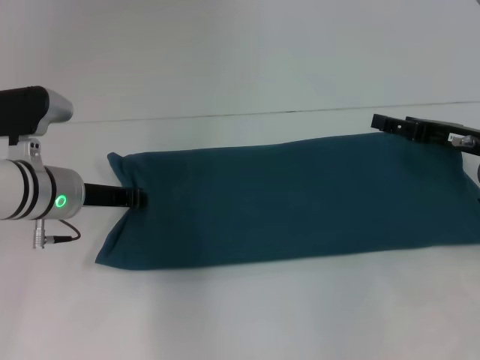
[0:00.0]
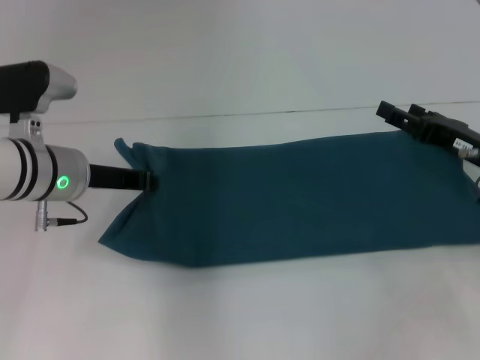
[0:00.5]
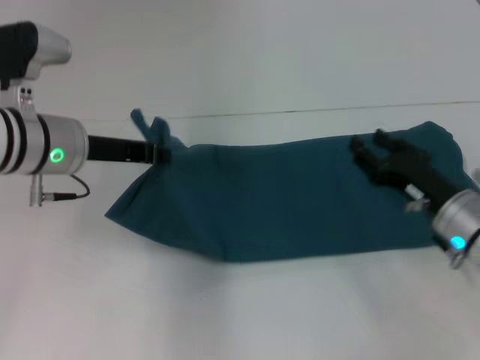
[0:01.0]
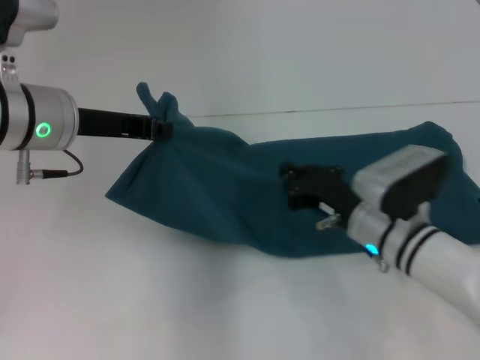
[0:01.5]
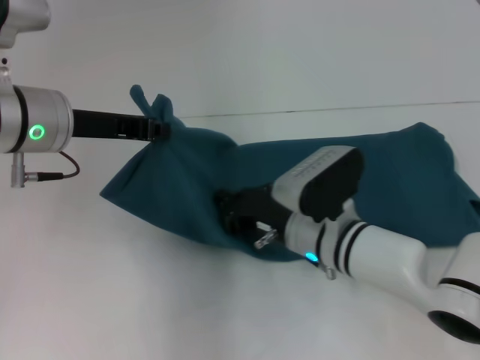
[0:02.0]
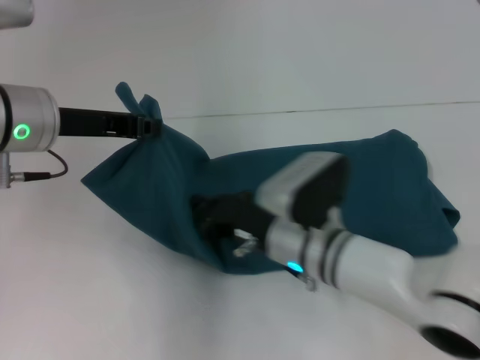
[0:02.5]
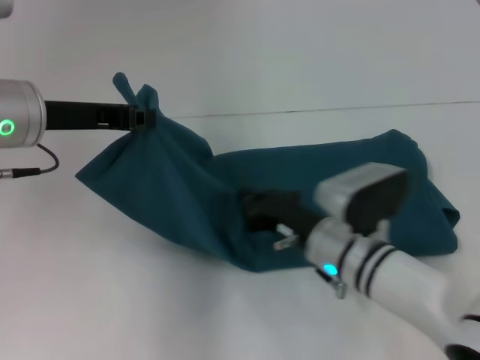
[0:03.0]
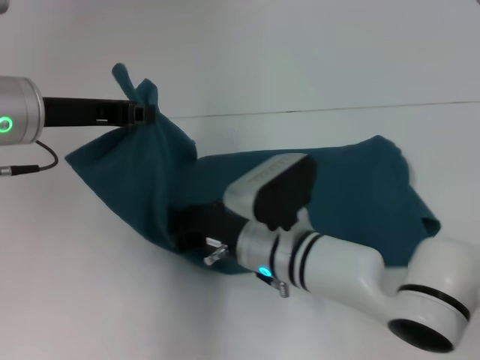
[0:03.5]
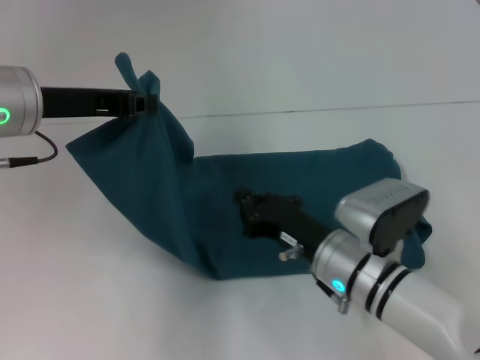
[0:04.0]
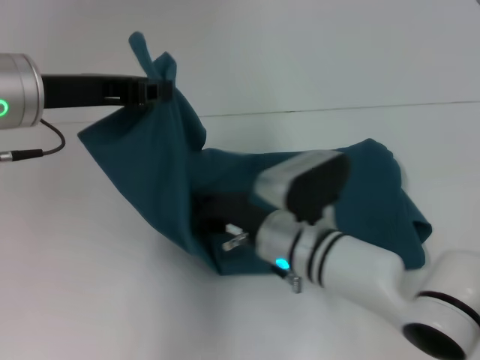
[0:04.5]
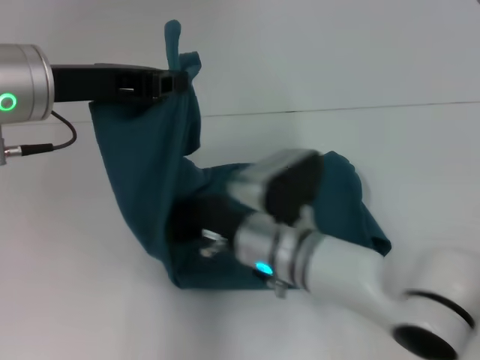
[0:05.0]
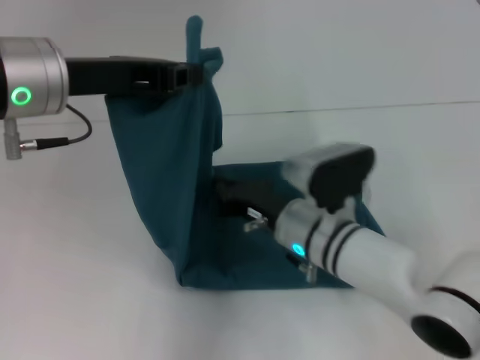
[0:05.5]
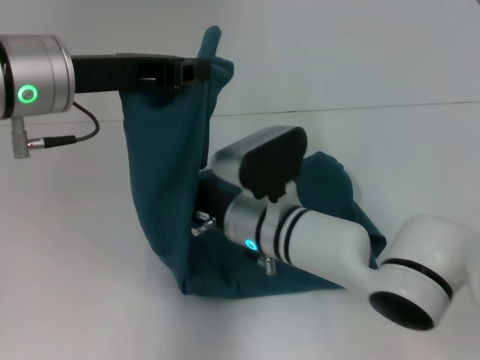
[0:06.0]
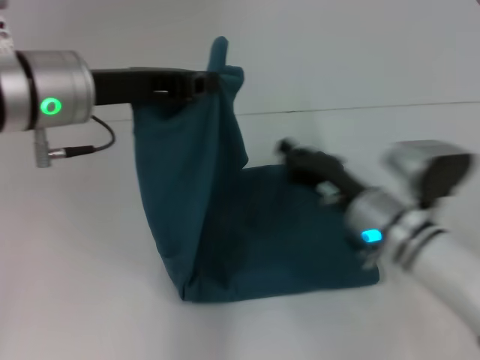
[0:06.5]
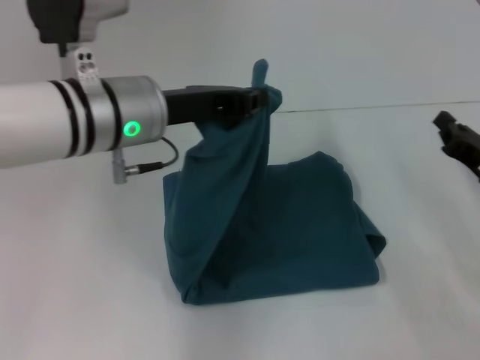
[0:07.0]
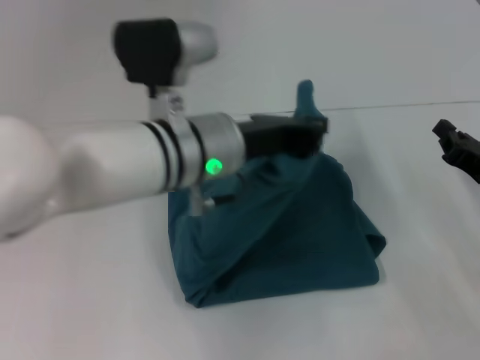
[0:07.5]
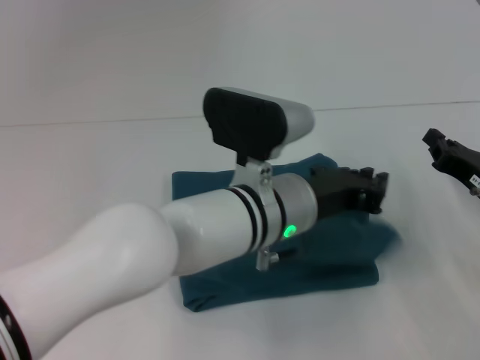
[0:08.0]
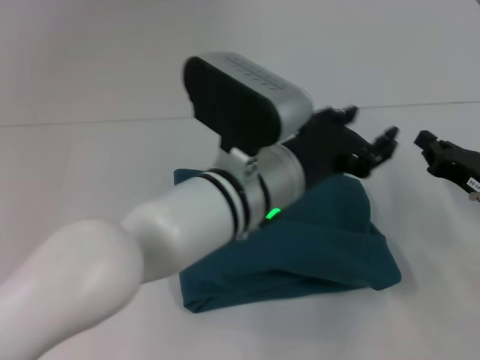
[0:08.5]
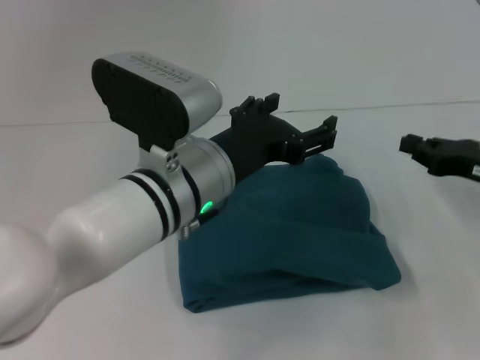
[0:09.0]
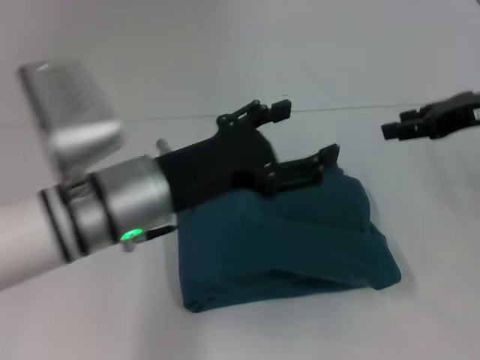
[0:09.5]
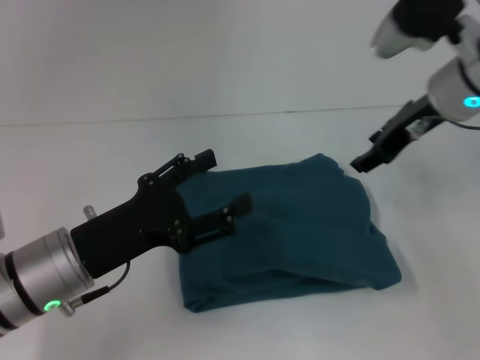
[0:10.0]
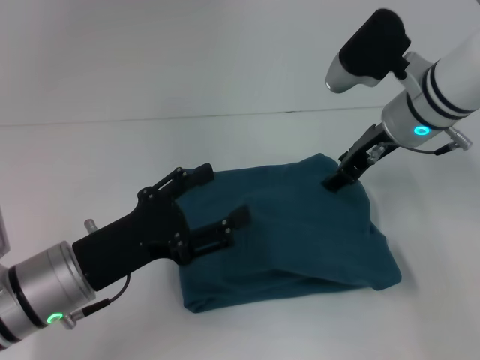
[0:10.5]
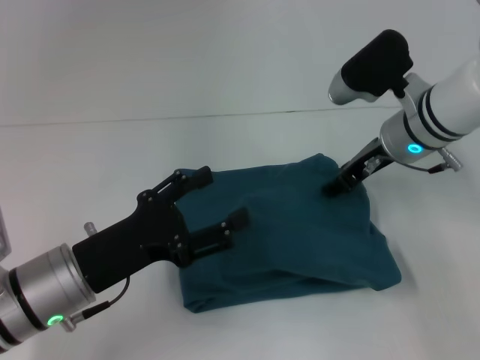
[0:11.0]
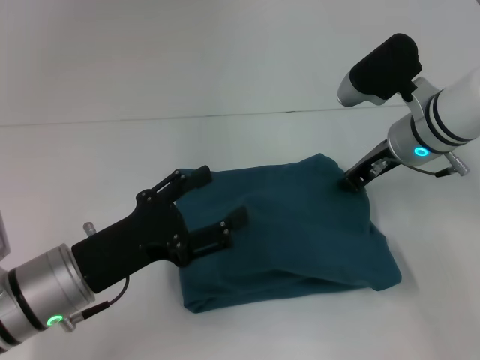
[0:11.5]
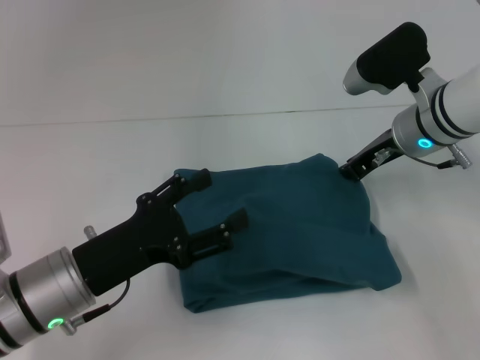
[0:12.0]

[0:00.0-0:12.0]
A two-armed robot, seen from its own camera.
Step, 0:00.0 to 0:06.0: Press the middle of the clothes with your right hand.
Step, 0:06.5 to 0:08.0: Fold the clothes to the left.
0:00.0 to 0:02.0: The right gripper goes roughly 20 cm to the left, and closes. Meanwhile the left gripper is displaced upward by about 10 cm, and closes up.
0:04.0 to 0:06.0: The right gripper heads to the left, covering about 10 cm.
0:06.0 to 0:08.0: The left gripper shifts some 25 cm to the right and downward. Meanwhile the right gripper goes about 25 cm to the right.
0:08.0 to 0:10.0: The left gripper is displaced to the left by approximately 20 cm, and opens its fingers, while the right gripper moves upward, forward and to the left, approximately 20 cm, and opens up.
0:10.0 to 0:12.0: The right gripper is displaced downward by about 5 cm, and closes.

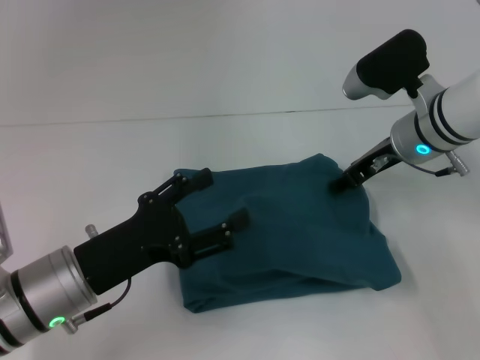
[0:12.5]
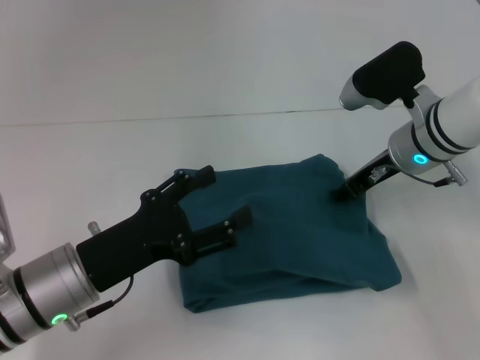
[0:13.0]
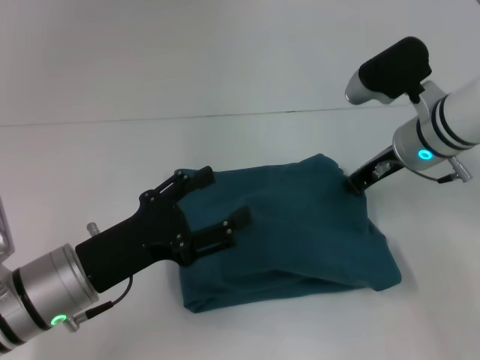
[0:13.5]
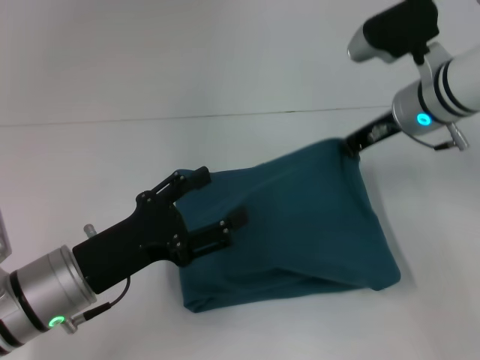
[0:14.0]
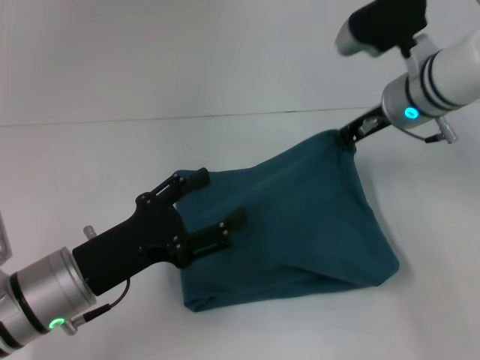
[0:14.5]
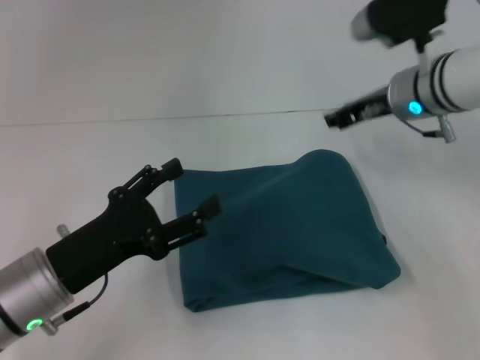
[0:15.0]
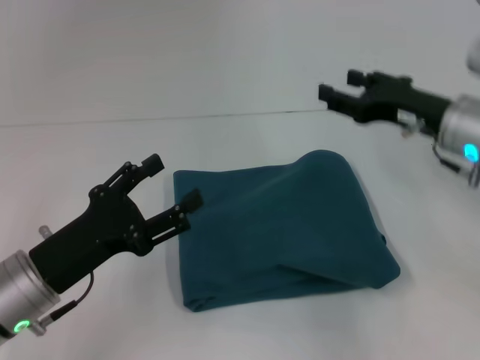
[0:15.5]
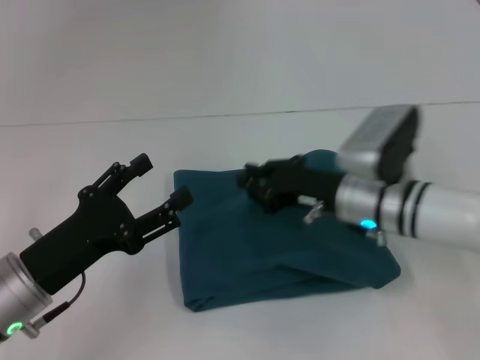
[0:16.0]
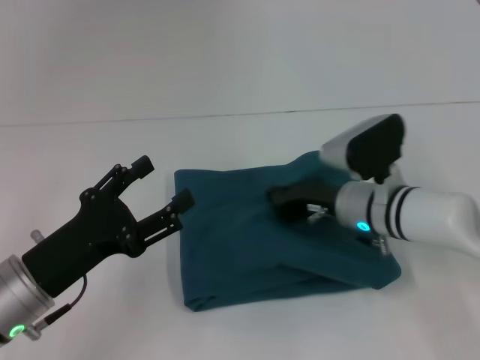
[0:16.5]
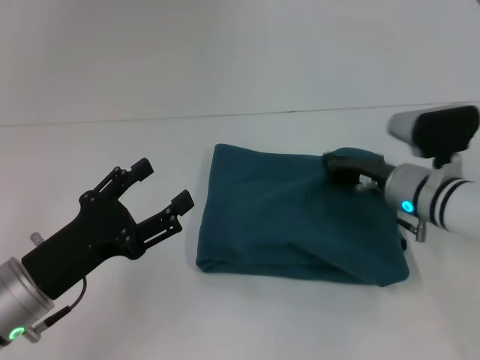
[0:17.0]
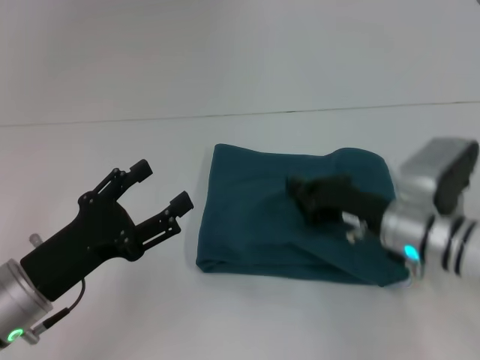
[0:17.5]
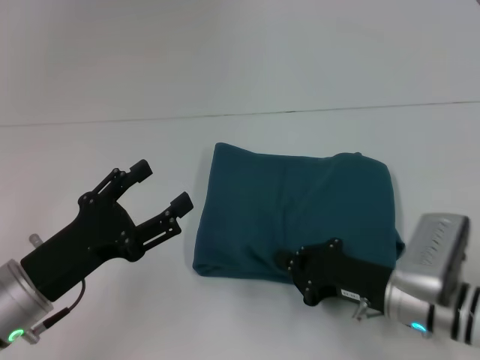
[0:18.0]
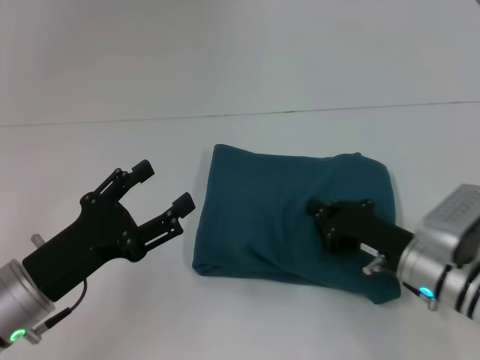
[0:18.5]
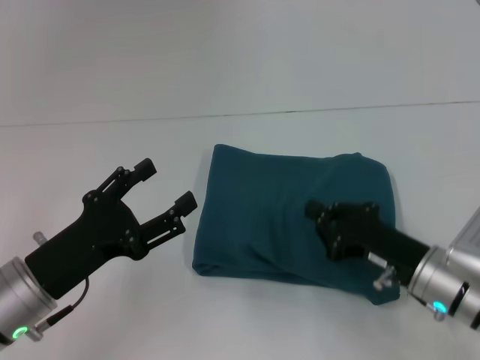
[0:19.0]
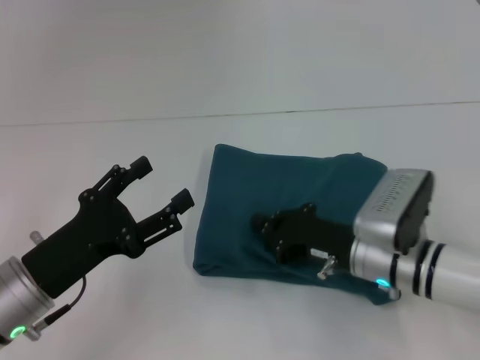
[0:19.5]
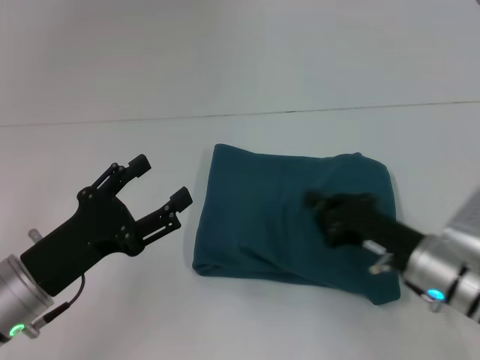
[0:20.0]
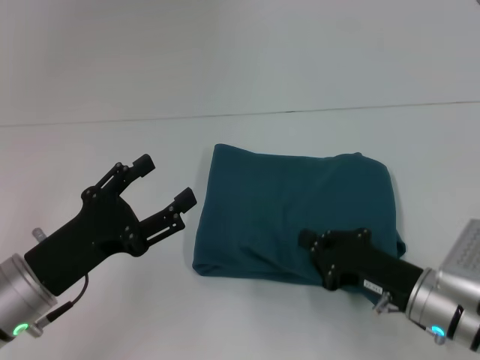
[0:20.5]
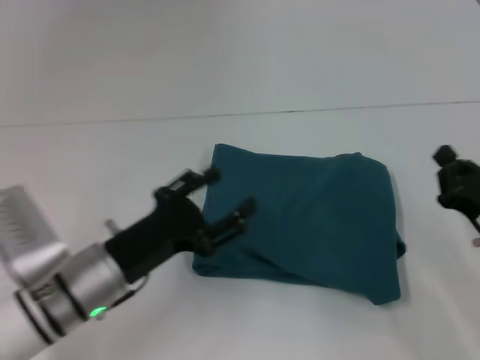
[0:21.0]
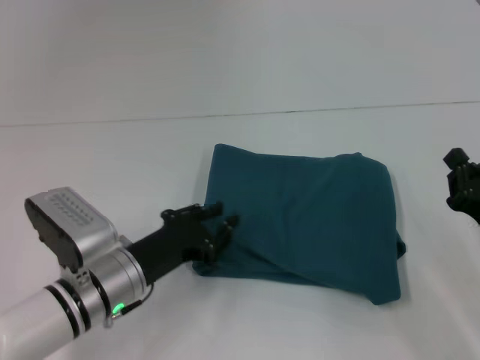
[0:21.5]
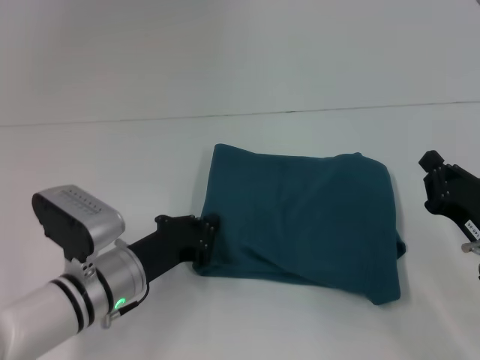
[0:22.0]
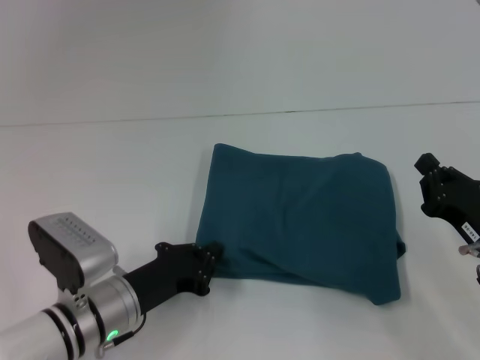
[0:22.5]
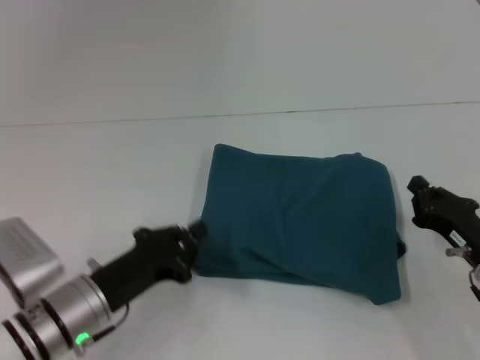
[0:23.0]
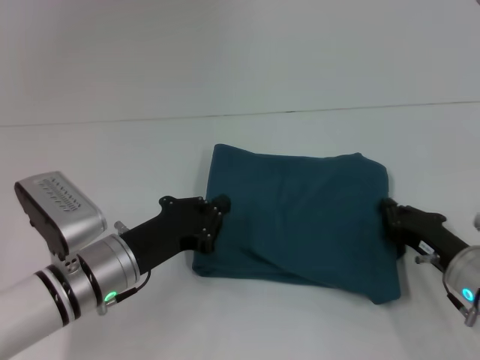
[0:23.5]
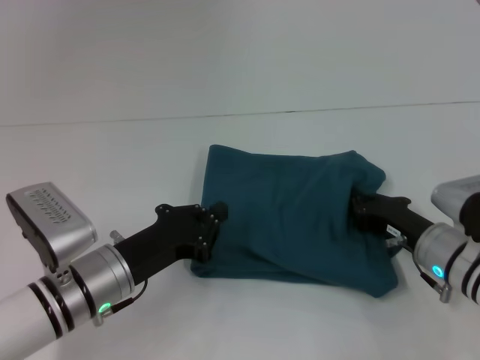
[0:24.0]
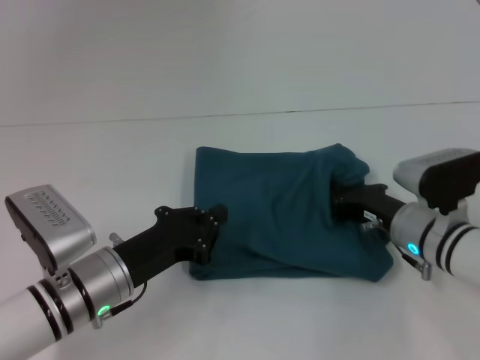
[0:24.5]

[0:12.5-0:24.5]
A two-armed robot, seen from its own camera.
0:12.5 to 0:14.5: The right gripper closes up.
0:14.5 to 0:16.5: The right gripper goes some 15 cm downward and backward, and opens and closes again.
0:16.5 to 0:18.5: The right gripper heads backward and to the right, covering about 10 cm.
0:20.5 to 0:22.5: The right gripper moves to the right, some 5 cm, while the left gripper is displaced downward and to the right by roughly 10 cm, and closes.
0:22.5 to 0:24.5: The right gripper shifts about 10 cm forward and to the left.

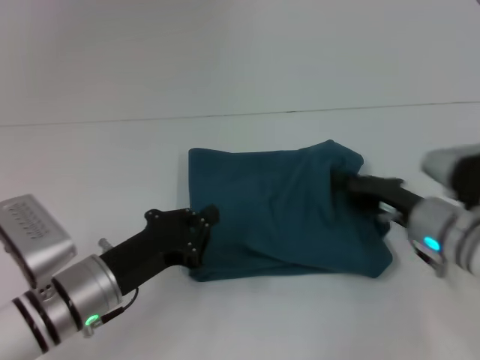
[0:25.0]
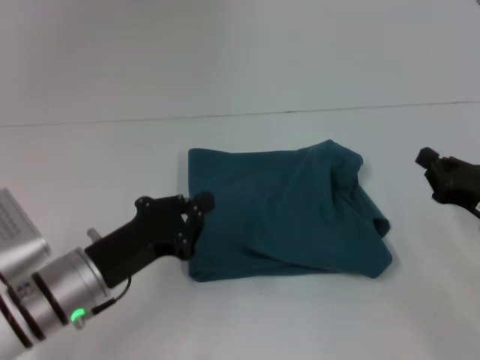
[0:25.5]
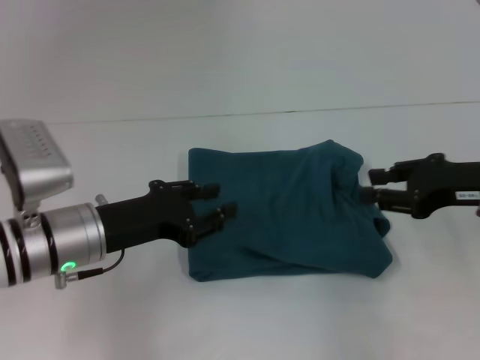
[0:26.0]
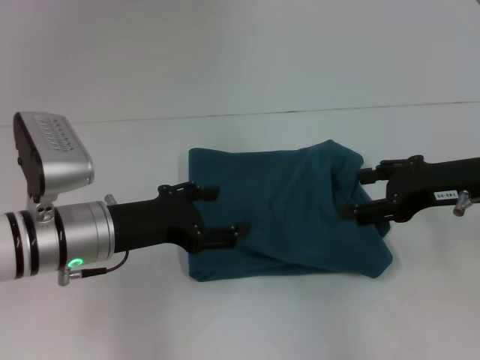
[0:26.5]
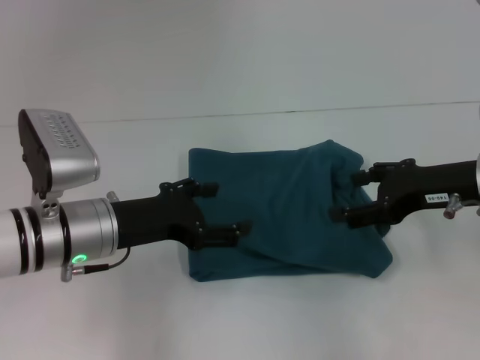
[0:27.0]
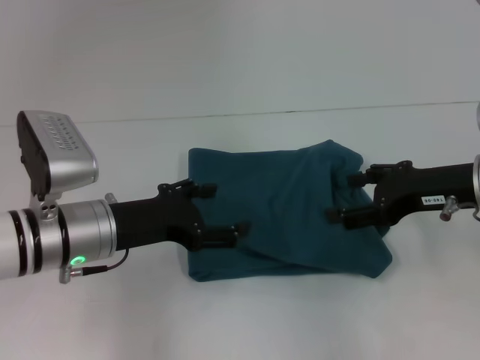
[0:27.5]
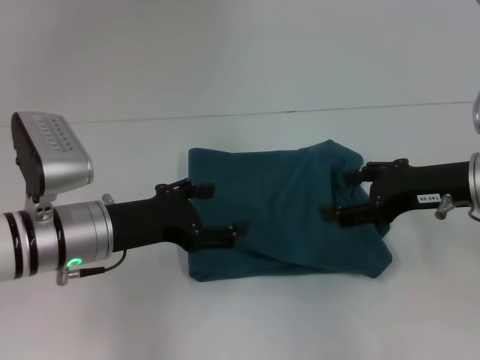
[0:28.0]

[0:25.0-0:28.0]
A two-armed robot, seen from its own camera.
0:25.0 to 0:26.5: The right gripper heads upward, covering approximately 15 cm, and opens; the left gripper shifts approximately 5 cm upward, and opens.
0:26.5 to 0:28.0: The grippers make only small movements.
